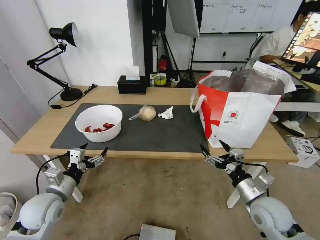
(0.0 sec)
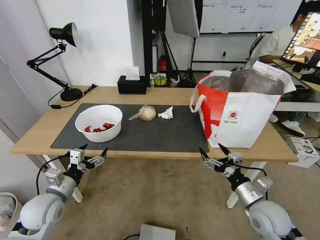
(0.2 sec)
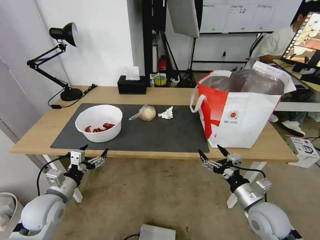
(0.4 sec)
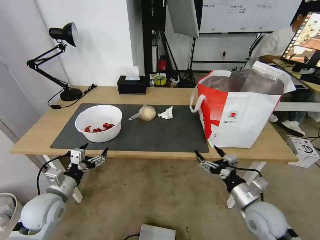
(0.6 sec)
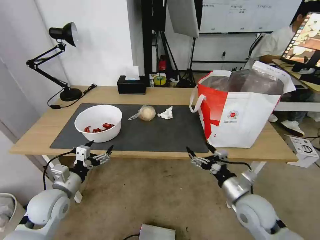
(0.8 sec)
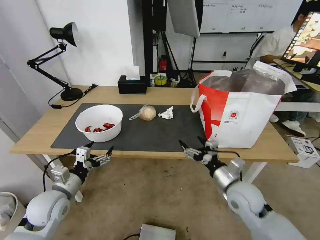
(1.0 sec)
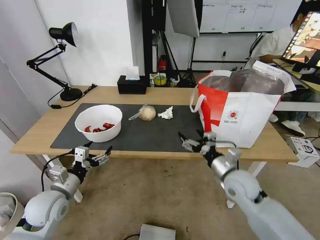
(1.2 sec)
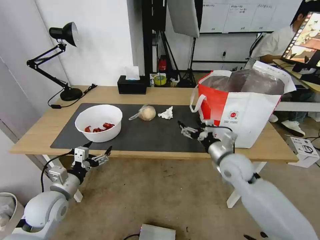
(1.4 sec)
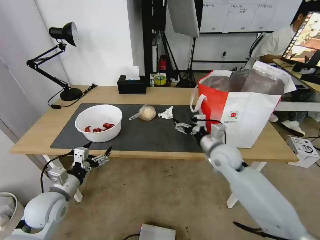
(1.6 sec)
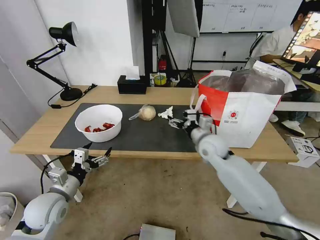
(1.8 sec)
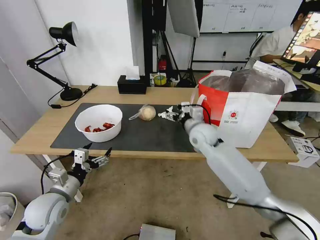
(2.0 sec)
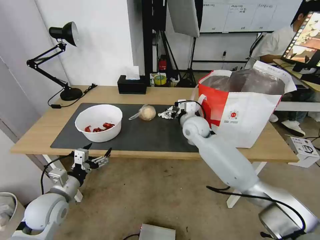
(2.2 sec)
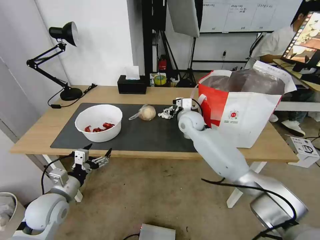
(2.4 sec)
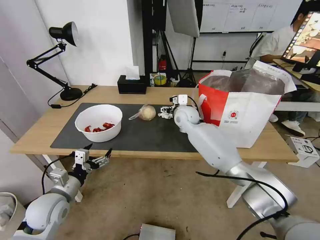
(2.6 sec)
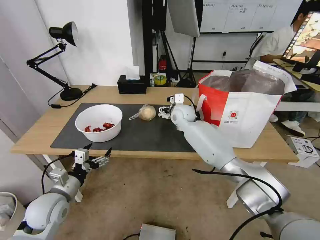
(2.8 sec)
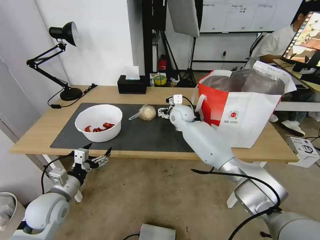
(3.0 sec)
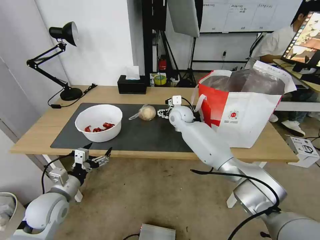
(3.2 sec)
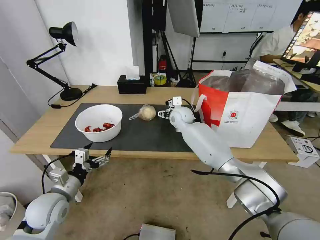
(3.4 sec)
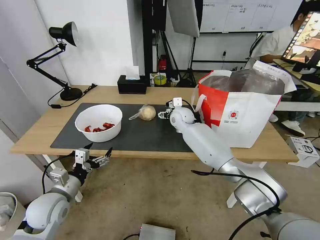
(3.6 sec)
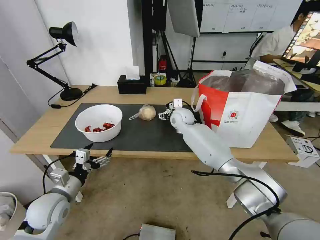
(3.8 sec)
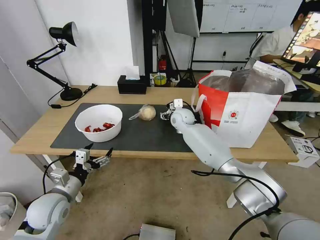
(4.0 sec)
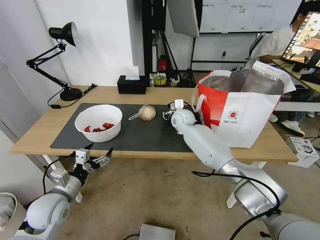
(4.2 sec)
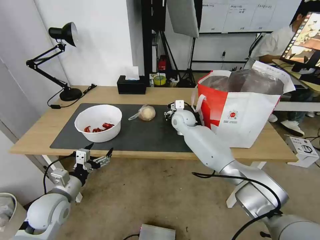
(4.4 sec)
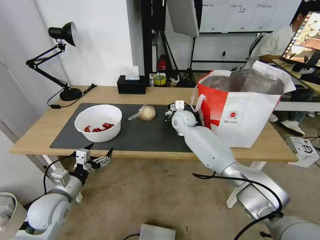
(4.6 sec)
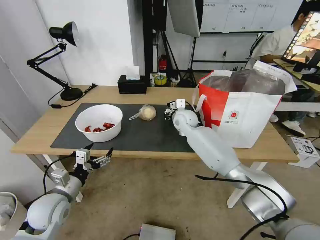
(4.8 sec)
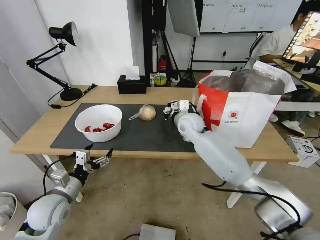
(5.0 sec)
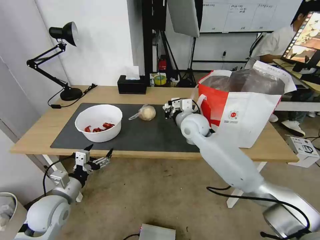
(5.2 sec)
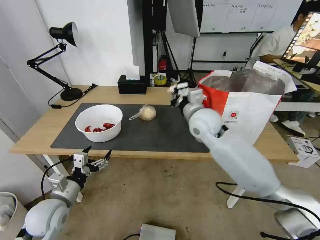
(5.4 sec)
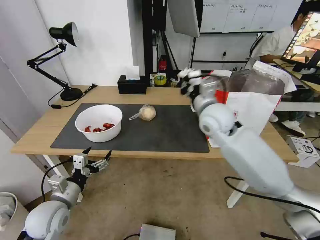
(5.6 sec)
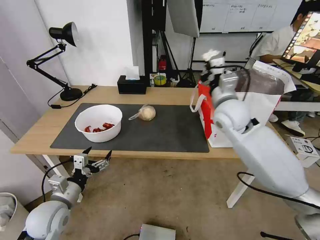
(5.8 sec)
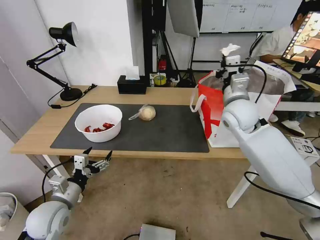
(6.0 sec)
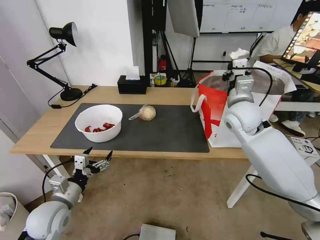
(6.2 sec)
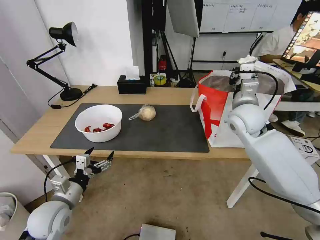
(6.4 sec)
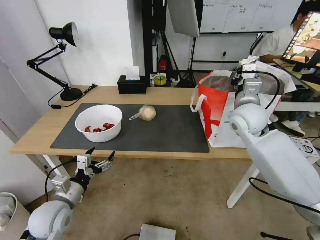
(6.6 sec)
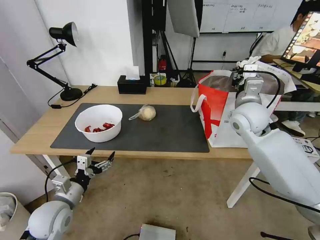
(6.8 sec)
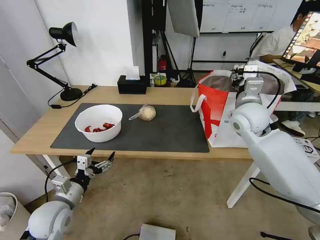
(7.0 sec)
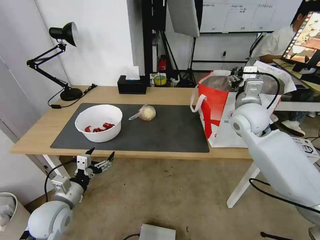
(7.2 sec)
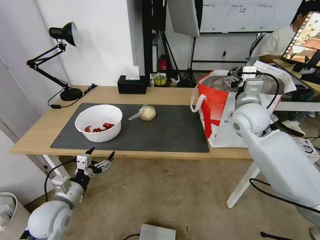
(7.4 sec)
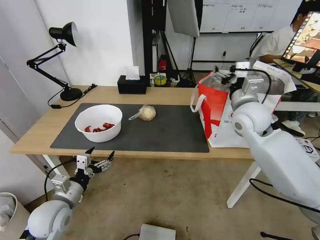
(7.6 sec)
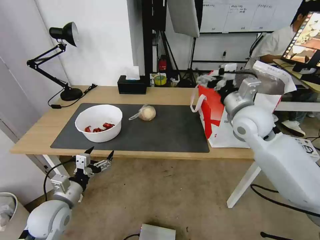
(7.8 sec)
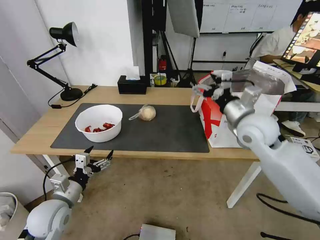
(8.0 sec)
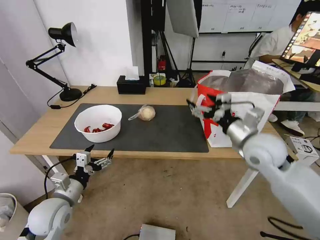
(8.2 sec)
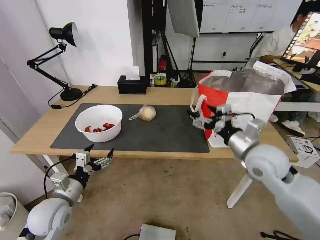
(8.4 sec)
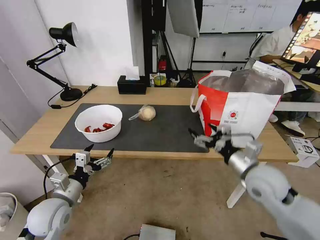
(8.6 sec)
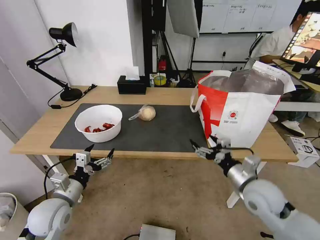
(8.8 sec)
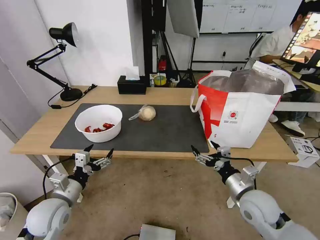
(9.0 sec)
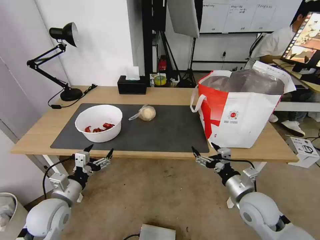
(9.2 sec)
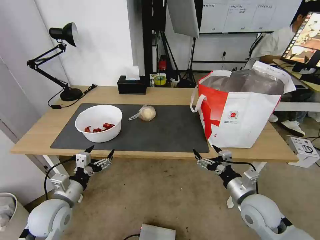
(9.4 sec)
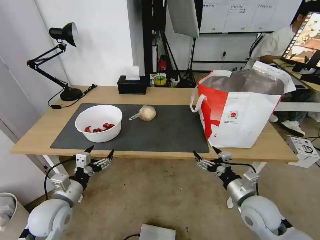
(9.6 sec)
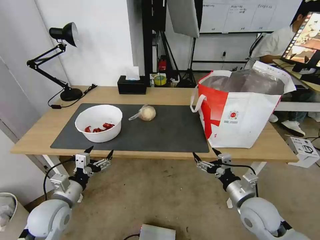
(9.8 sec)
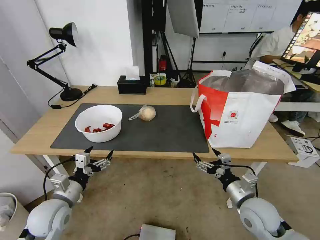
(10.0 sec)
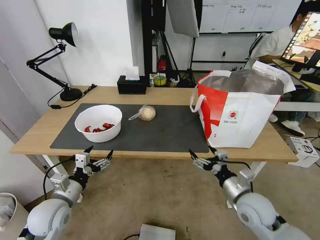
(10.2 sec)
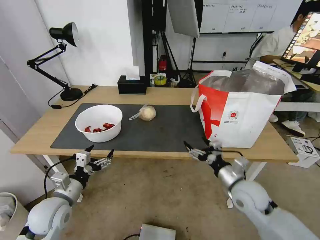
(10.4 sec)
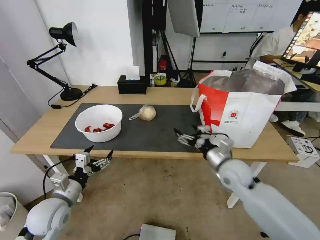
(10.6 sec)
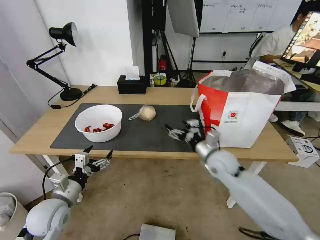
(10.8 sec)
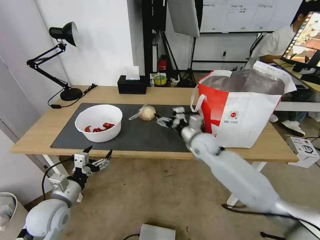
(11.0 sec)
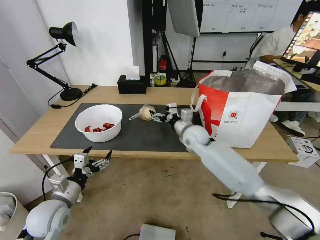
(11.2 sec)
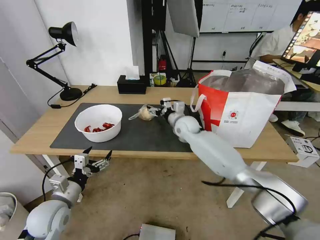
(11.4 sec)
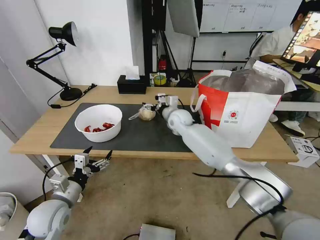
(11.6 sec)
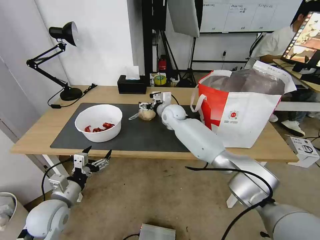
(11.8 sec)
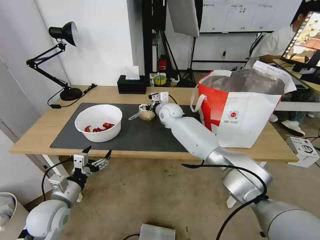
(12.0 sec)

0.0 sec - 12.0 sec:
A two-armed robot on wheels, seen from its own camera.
Task of the whole recording: Pick up the trash from the table and place it into the takeout bag.
0.0 sec - 1.6 sec: The right gripper travels forward and to the left by about 20 cm.
1.6 sec - 3.0 sec: The right gripper shifts some 20 cm forward and to the left.
3.0 sec - 4.4 sec: The right gripper closes up.
4.4 sec - 6.0 sec: The right gripper heads upward, to the right and backward, covering approximately 25 cm, and closes its fingers.
6.0 sec - 7.6 sec: The right gripper opens up.
7.6 sec - 9.0 sec: The right gripper shifts roughly 25 cm downward and backward.
9.0 sec - 10.4 sec: The grippers make only small movements.
10.4 sec - 12.0 sec: The right gripper is displaced forward and to the left by some 40 cm.

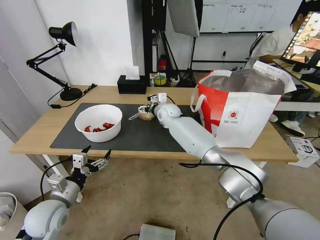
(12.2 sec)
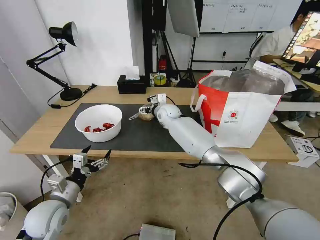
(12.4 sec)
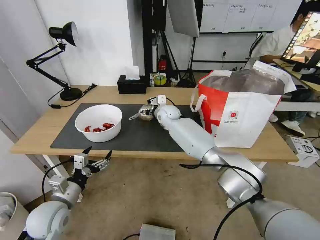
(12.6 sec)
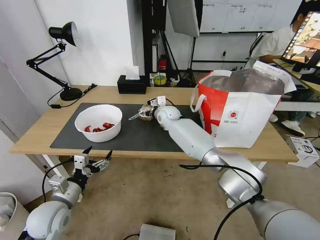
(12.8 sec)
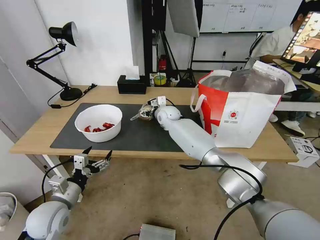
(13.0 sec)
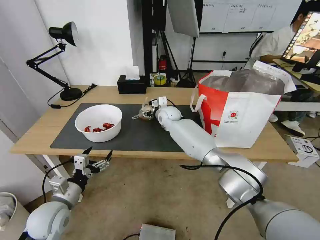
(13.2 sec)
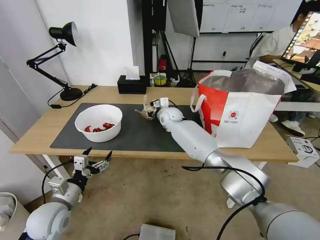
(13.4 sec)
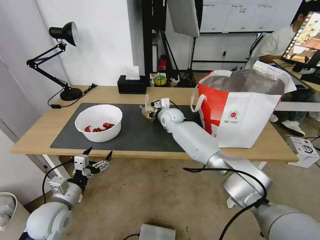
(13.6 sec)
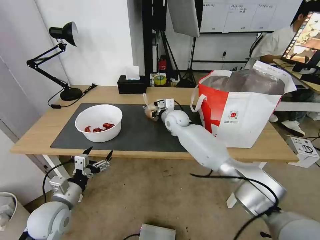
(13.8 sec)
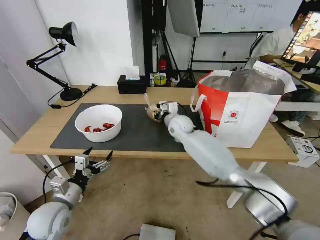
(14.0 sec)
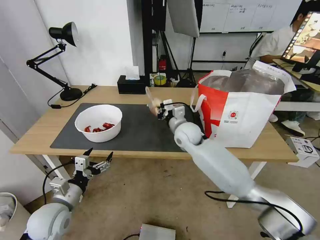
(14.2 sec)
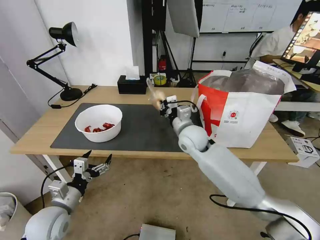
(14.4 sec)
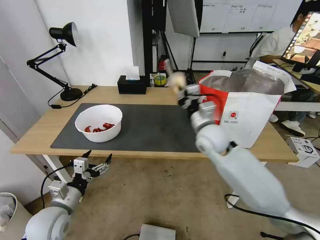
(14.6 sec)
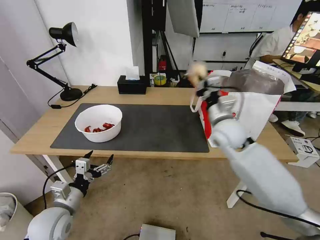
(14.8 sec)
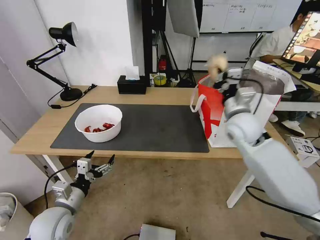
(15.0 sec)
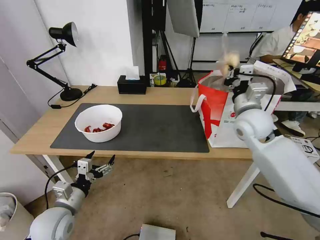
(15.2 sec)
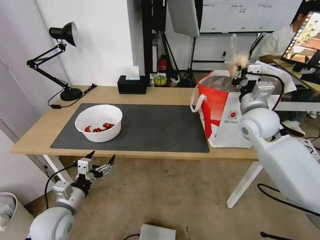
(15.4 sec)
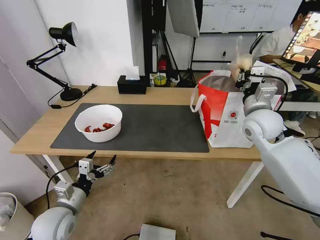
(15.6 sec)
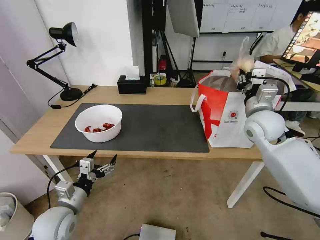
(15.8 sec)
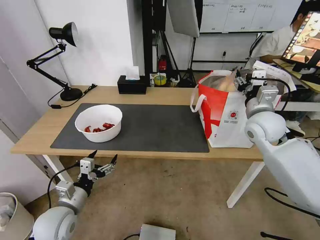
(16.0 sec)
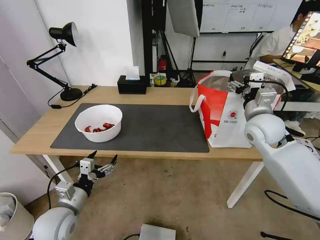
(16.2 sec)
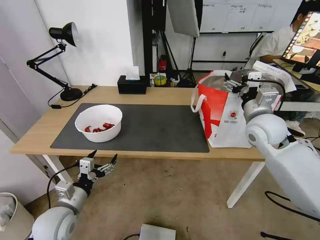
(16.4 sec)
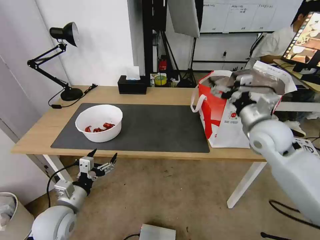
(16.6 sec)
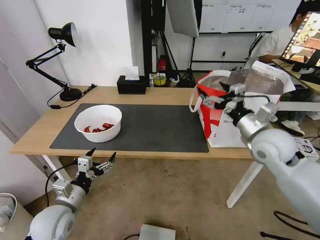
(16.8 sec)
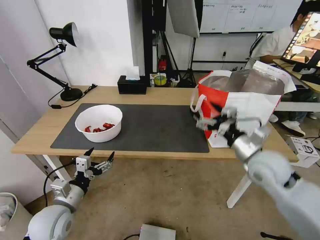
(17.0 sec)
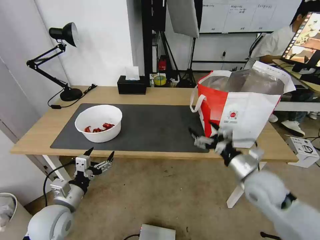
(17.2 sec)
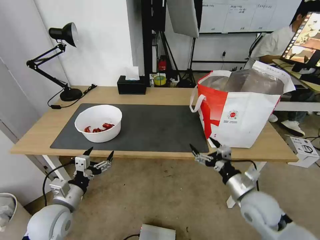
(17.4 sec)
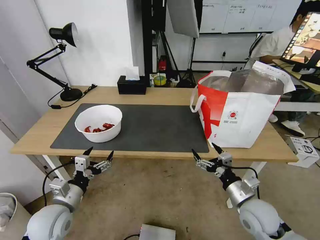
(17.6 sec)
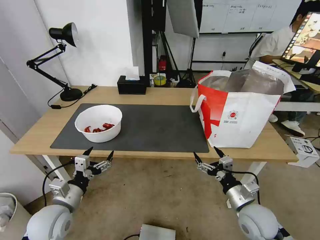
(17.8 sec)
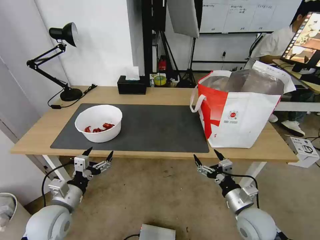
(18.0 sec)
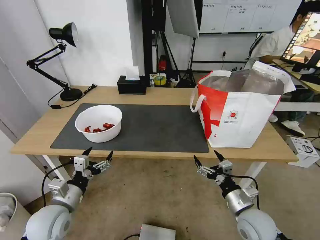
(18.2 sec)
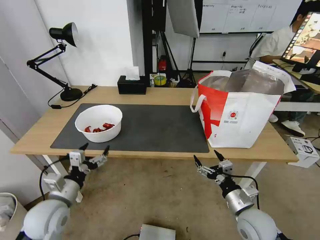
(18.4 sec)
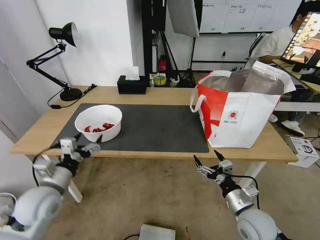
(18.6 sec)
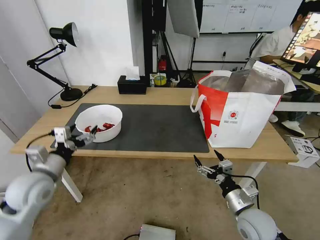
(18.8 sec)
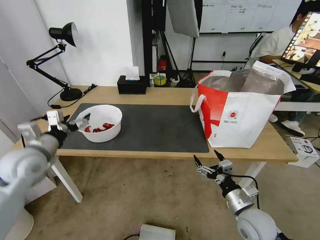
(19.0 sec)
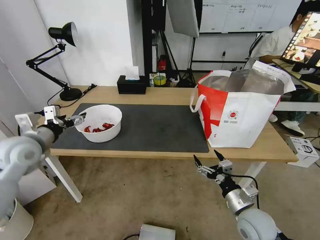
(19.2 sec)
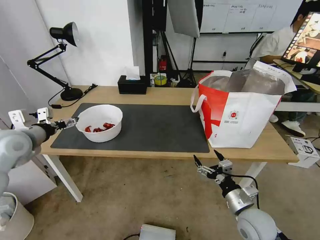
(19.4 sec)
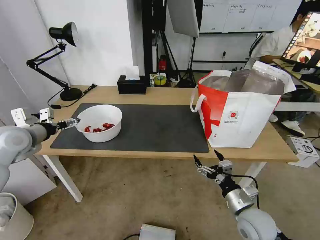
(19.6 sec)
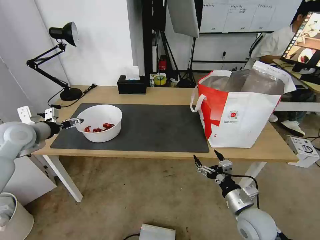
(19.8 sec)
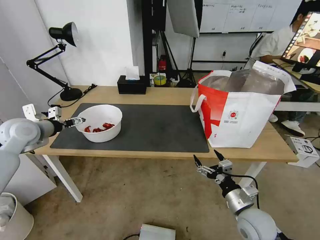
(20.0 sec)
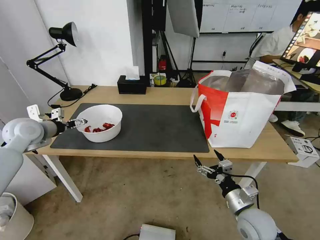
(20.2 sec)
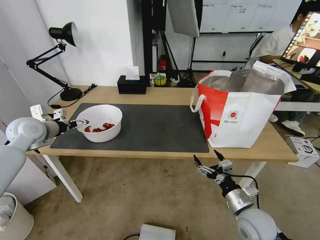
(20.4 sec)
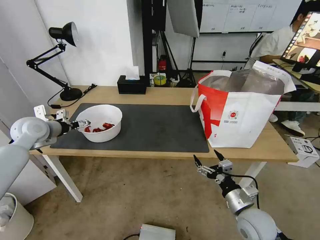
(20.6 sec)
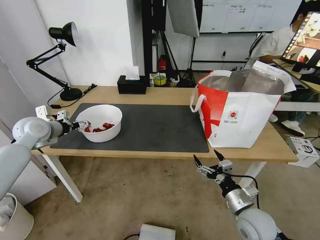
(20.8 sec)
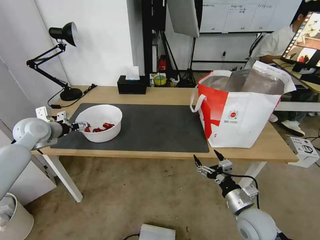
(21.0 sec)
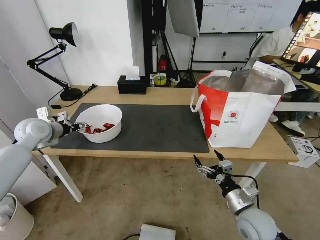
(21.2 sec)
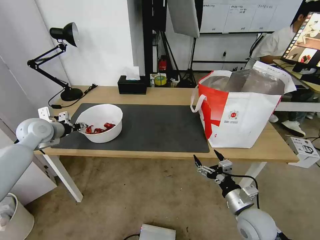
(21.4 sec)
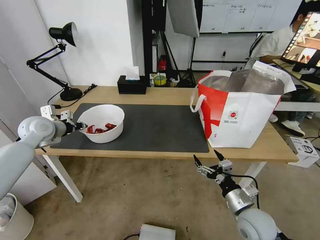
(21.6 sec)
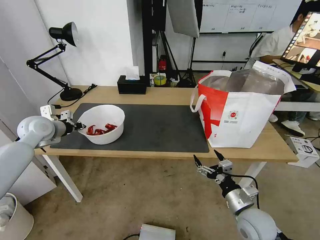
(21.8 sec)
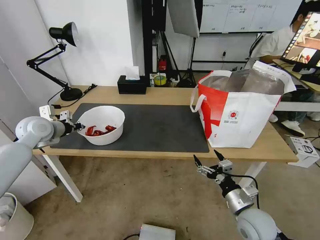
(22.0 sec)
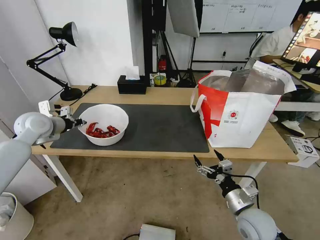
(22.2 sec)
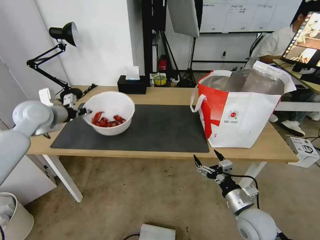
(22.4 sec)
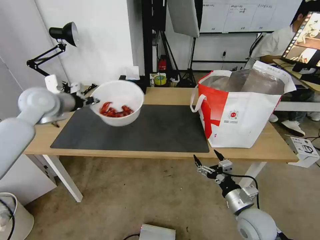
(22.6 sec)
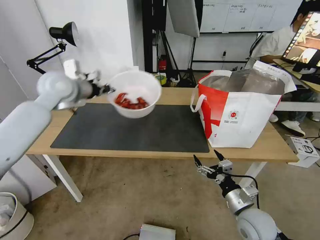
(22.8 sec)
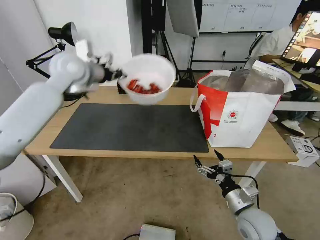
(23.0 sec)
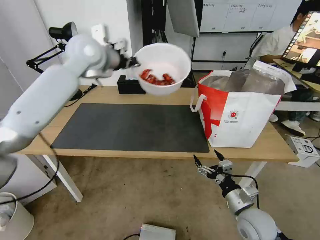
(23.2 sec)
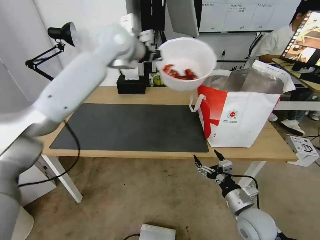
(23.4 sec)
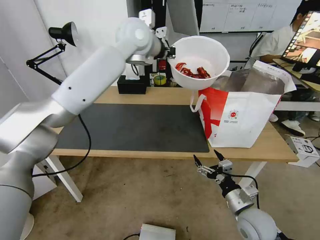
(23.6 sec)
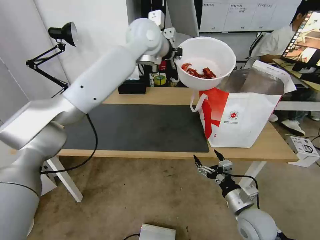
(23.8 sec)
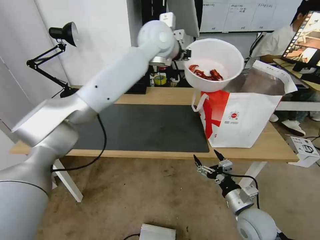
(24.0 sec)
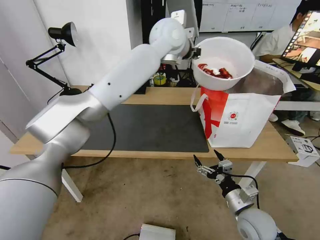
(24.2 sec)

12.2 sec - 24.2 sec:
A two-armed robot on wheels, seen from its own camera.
Task of the whole recording: Pick up the trash from the table and place it into the takeout bag.
12.2 sec - 13.8 sec: The right gripper closes up.
13.8 sec - 15.2 sec: The right gripper is displaced to the right, backward and upward by roughly 30 cm.
15.2 sec - 16.6 sec: The right gripper opens its fingers.
16.6 sec - 18.2 sec: The right gripper travels downward and backward by approximately 30 cm.
18.2 sec - 19.8 sec: The left gripper goes roughly 25 cm forward, upward and to the left.
19.8 sec - 21.2 sec: The left gripper changes place by some 5 cm.
21.2 sec - 22.6 sec: The left gripper is displaced upward and to the right by approximately 10 cm, and closes.
22.6 sec - 24.2 sec: The left gripper heads to the right, covering about 35 cm.
